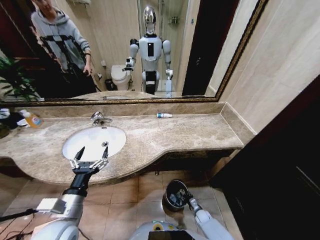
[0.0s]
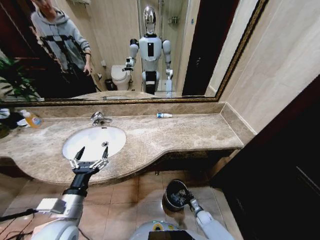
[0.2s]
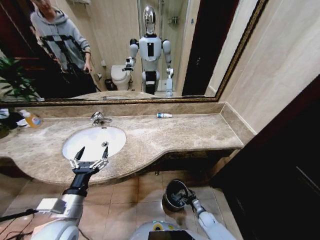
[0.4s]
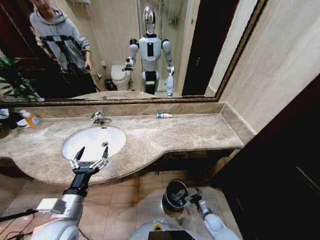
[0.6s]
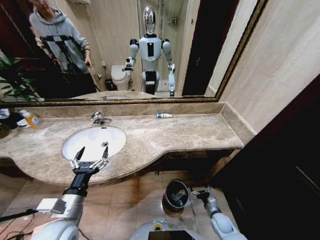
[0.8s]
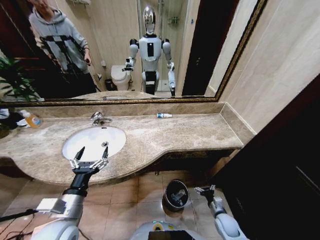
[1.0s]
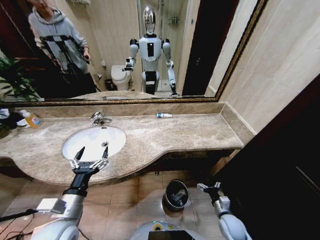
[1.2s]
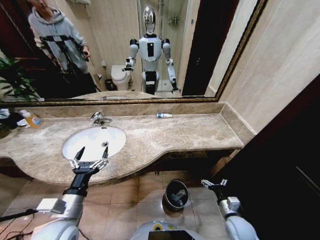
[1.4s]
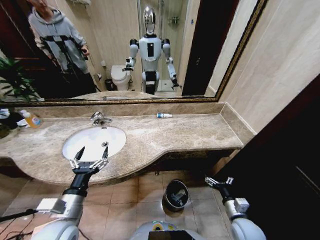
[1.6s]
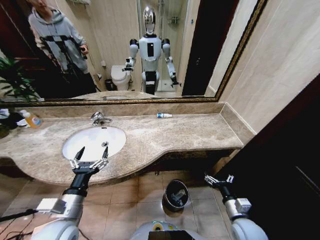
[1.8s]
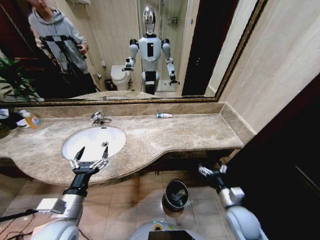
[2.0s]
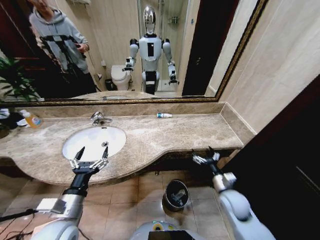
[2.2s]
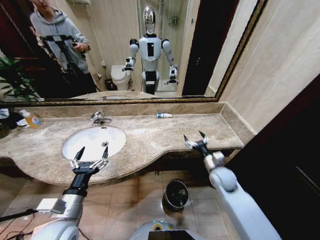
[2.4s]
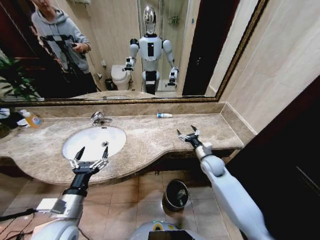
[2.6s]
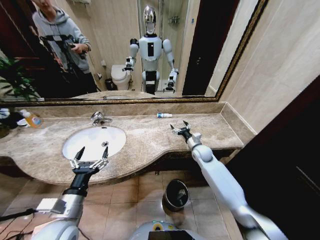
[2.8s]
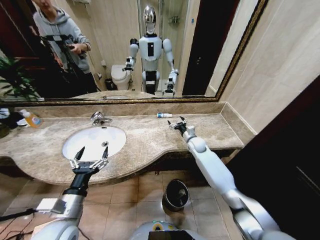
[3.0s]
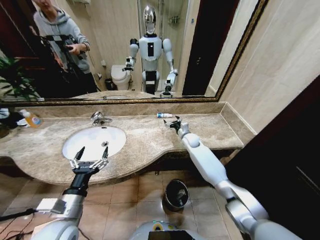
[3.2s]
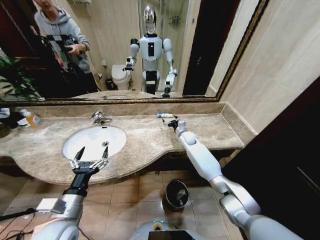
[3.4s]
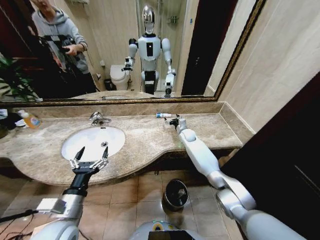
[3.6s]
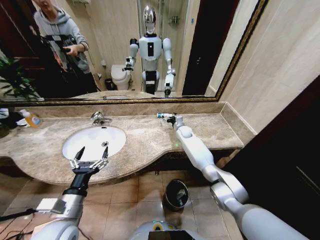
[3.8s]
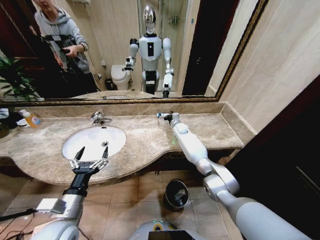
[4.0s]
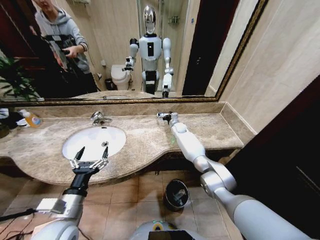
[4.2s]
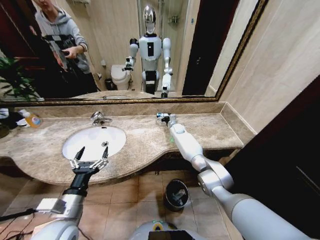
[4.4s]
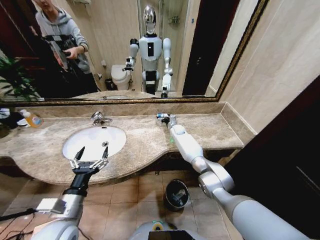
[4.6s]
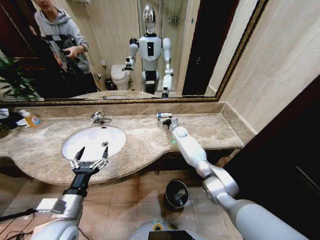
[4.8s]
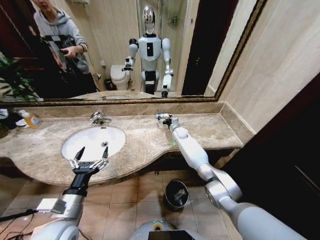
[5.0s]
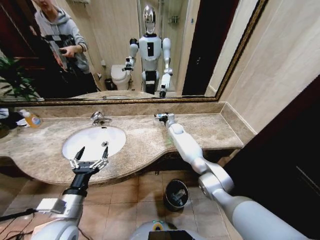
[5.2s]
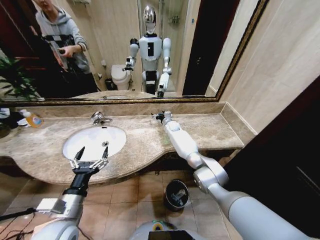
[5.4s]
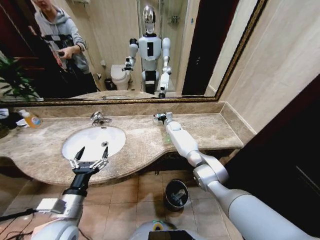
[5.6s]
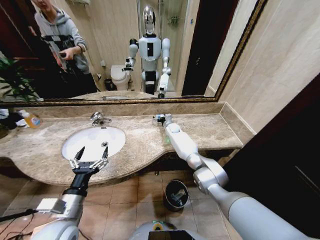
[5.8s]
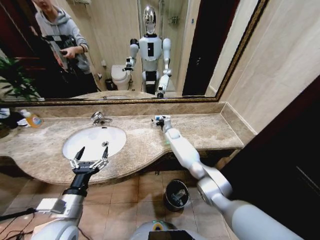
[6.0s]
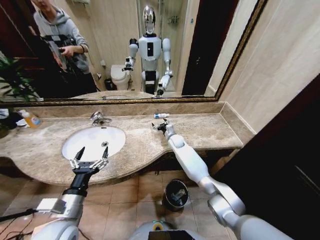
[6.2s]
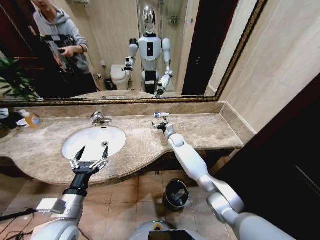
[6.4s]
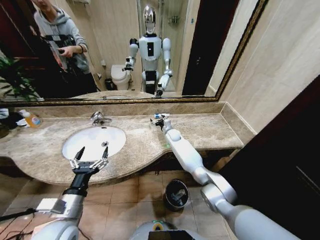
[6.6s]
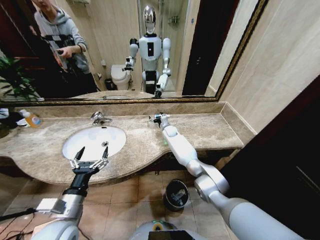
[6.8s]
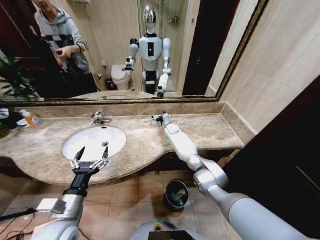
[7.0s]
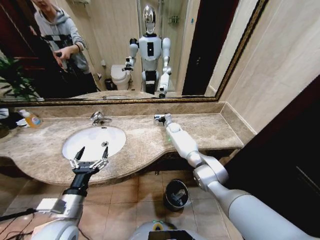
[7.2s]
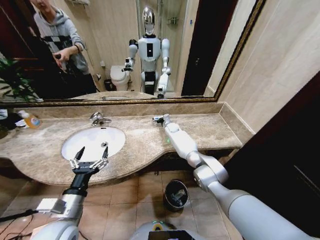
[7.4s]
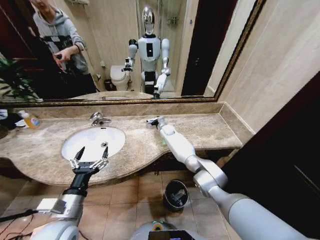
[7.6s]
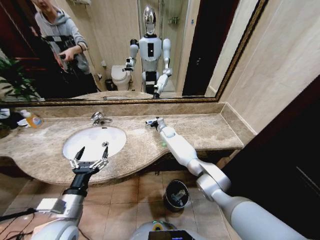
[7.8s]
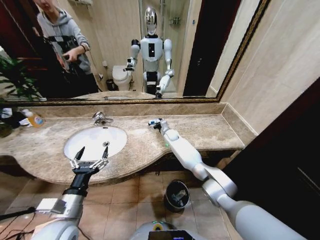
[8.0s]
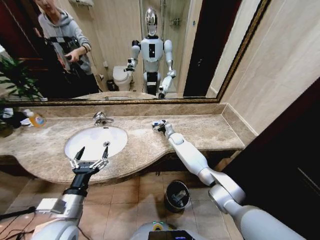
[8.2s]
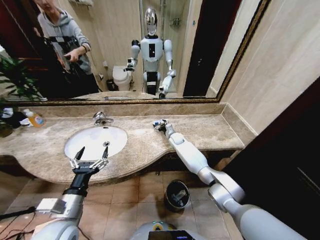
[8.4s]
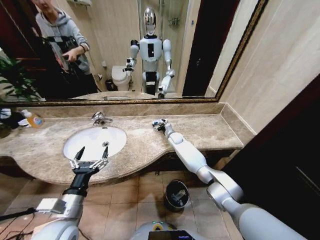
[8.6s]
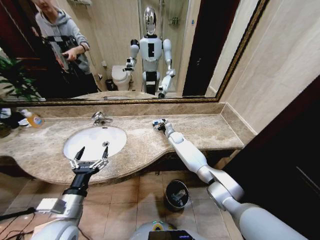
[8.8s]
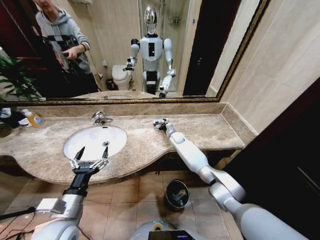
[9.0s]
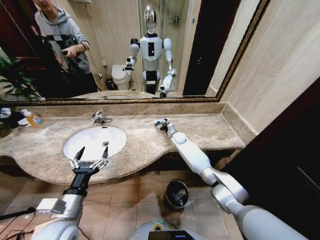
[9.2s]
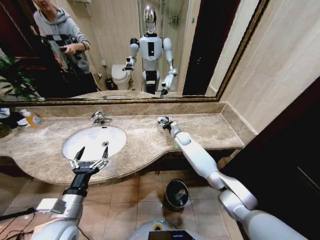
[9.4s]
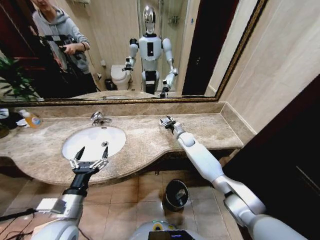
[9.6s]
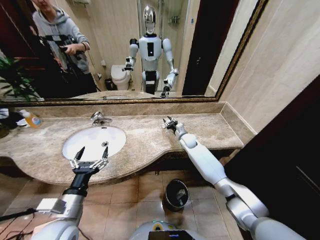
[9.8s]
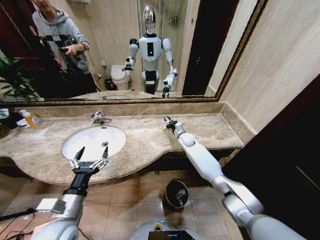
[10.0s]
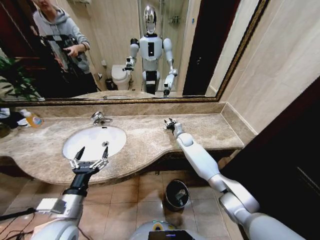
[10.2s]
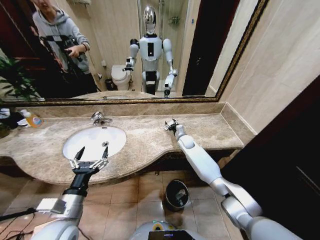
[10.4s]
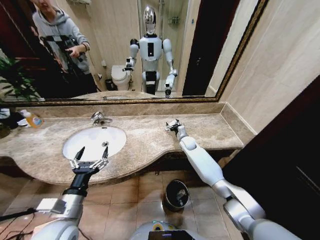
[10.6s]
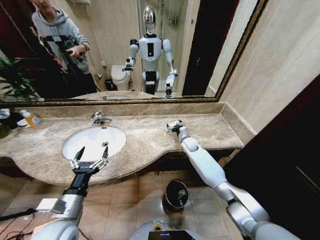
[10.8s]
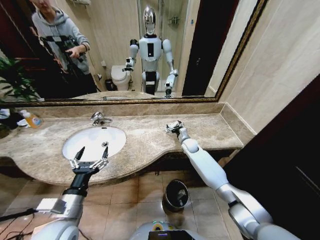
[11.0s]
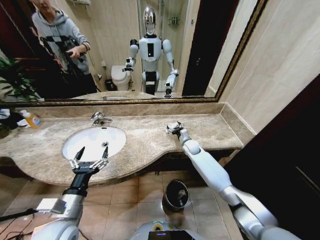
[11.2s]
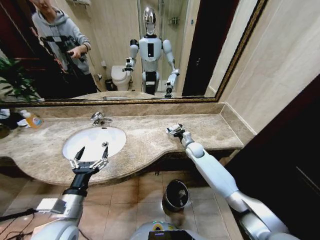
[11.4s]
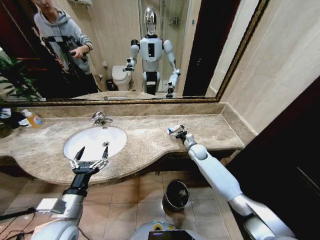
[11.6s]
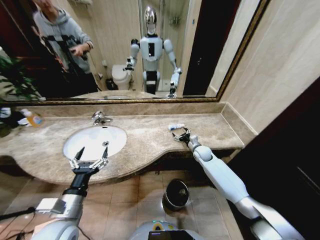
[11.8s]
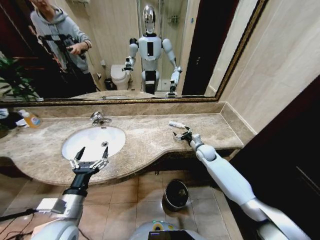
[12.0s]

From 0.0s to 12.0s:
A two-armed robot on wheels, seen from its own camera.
Task of the whole recording: Pick up the trash from the sink and place it in the trash bin.
From 0.0s to 1.6s: The right gripper is displaced upward by some 30 cm, and opens its fingers.
From 1.6s to 3.0s: The right gripper heads forward, covering about 35 cm.
From 3.0s to 4.4s: The right gripper is displaced forward and to the left by roughly 15 cm.
From 4.4s to 6.0s: The right gripper shifts by approximately 5 cm.
From 6.0s to 7.6s: The right gripper reaches about 5 cm backward, then returns.
From 7.6s to 9.0s: The right gripper goes approximately 5 cm to the right.
From 9.0s to 10.4s: The right gripper shifts by some 5 cm.
From 10.4s to 12.0s: The right gripper goes approximately 15 cm to the right and backward, and opens.

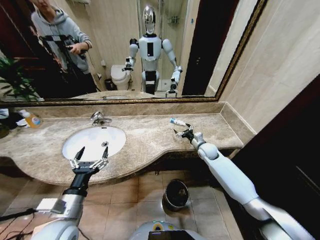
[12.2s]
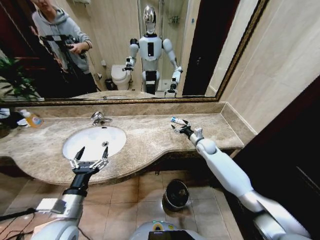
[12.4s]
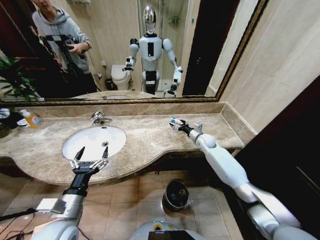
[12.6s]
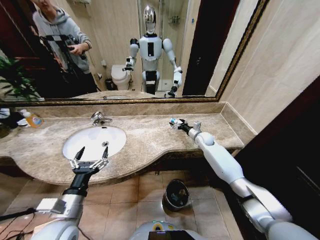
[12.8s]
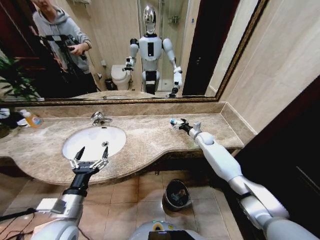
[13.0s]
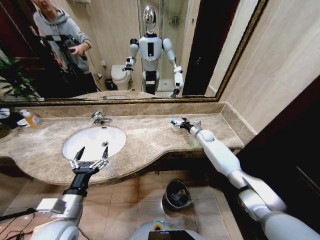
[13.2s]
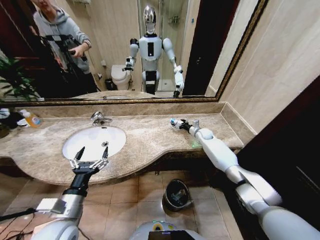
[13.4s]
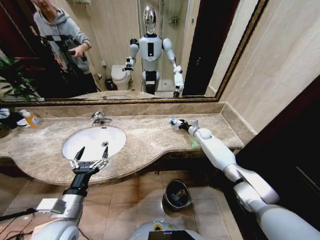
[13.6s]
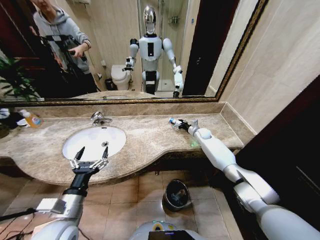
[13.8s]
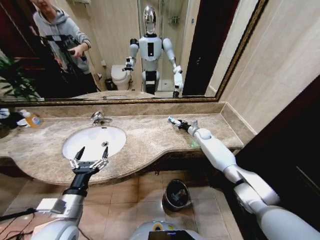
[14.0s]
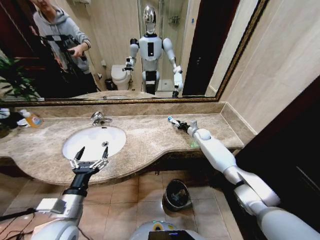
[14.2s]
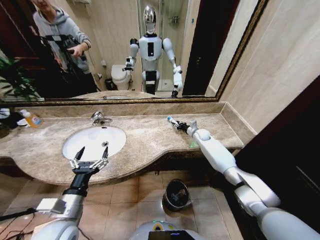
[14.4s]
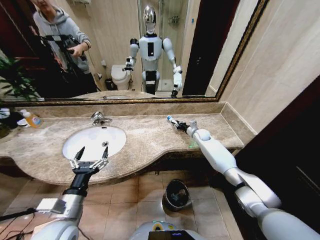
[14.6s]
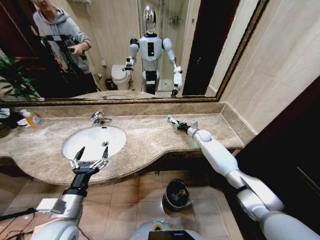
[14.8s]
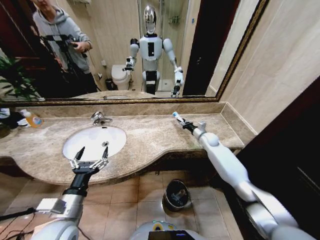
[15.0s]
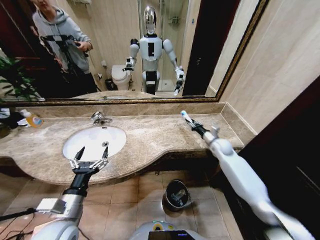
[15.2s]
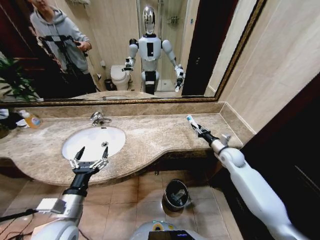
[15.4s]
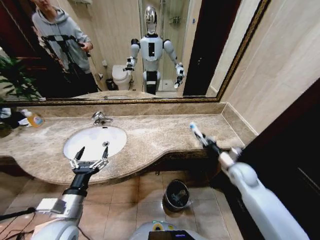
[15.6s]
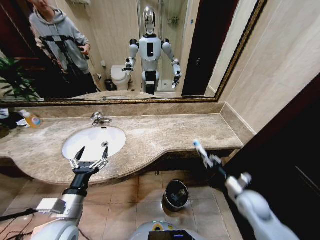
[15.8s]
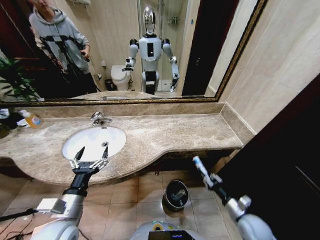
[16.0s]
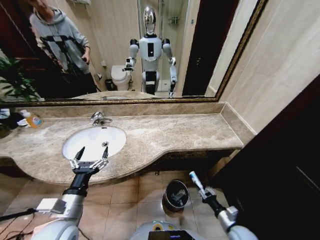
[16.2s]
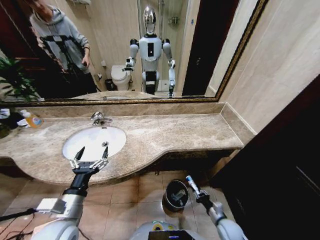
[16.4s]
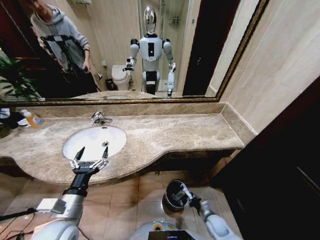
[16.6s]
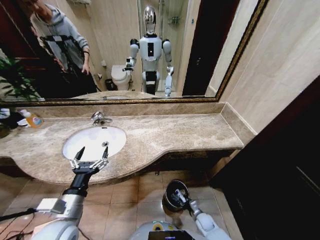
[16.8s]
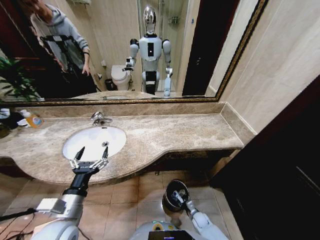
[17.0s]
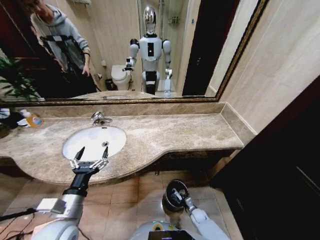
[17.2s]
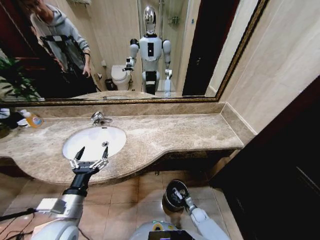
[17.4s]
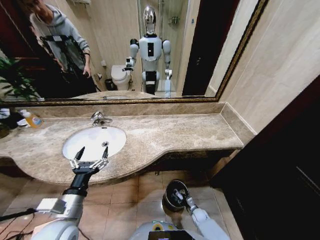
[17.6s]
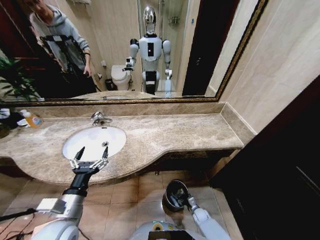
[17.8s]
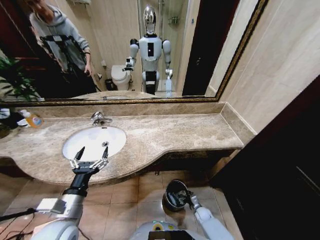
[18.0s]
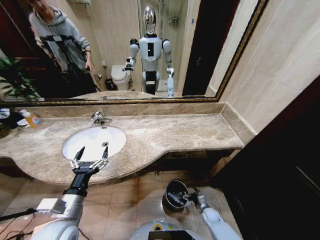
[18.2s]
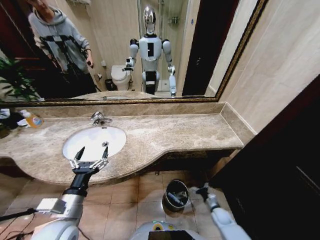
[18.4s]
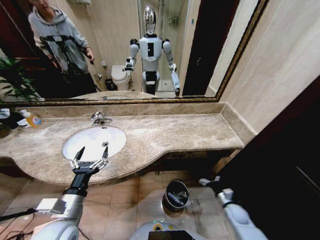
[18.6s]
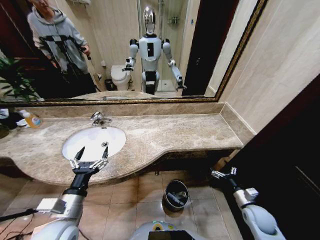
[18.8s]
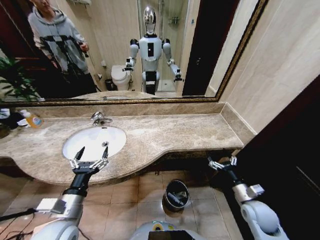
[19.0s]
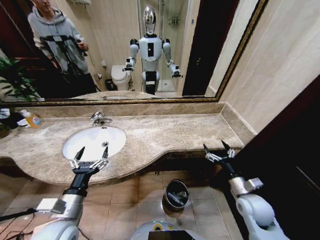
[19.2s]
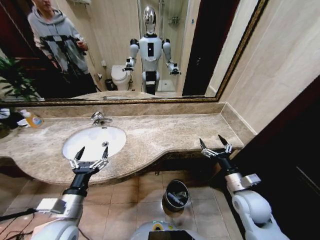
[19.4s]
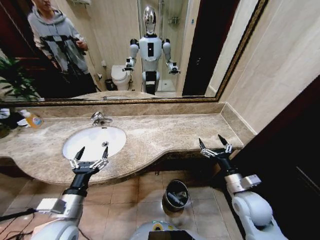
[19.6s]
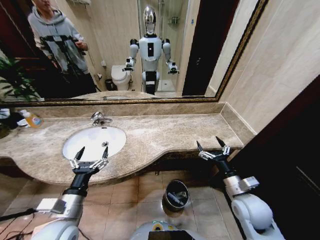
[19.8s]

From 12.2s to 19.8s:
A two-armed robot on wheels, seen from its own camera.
Task of the whole recording: Pick up the trash from the sink and place it in the trash bin.
From 12.2s to 13.8s: The right gripper heads forward, covering roughly 15 cm.
From 13.8s to 15.2s: The right gripper is displaced backward by some 15 cm, and closes its fingers.
From 15.2s to 16.8s: The right gripper moves downward and backward, some 40 cm.
From 16.8s to 18.2s: The right gripper moves roughly 5 cm, and opens its fingers.
From 18.2s to 19.8s: The right gripper goes approximately 35 cm upward.
